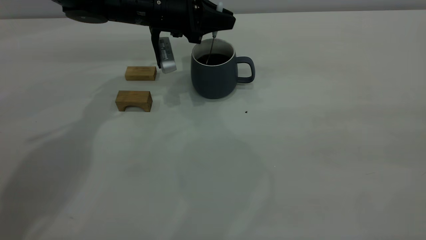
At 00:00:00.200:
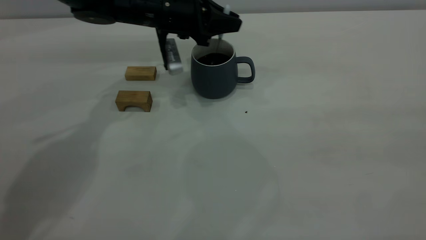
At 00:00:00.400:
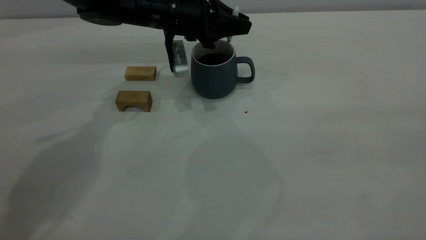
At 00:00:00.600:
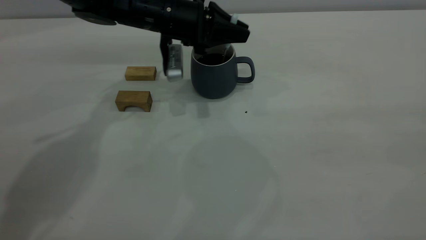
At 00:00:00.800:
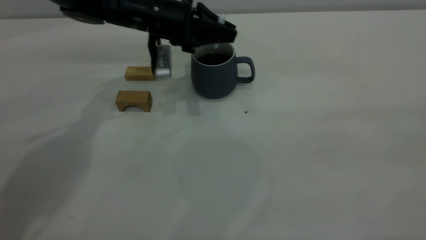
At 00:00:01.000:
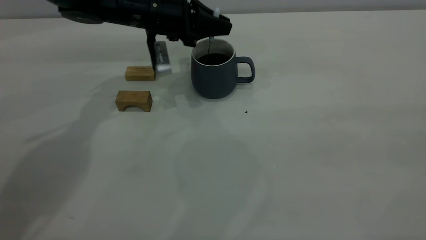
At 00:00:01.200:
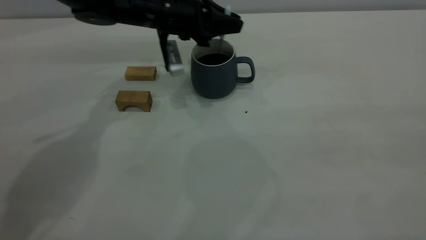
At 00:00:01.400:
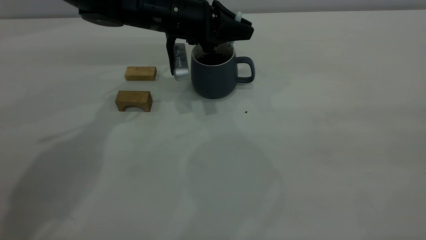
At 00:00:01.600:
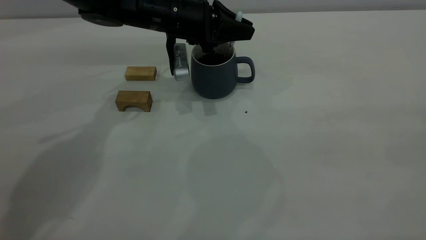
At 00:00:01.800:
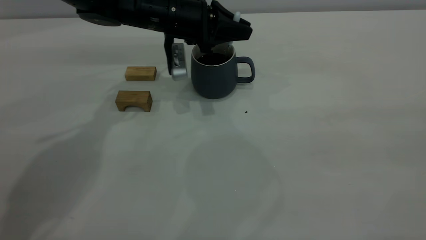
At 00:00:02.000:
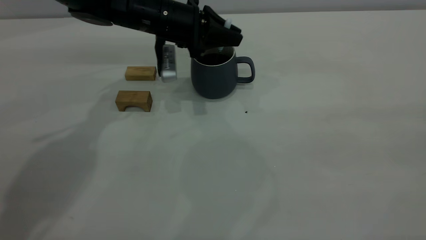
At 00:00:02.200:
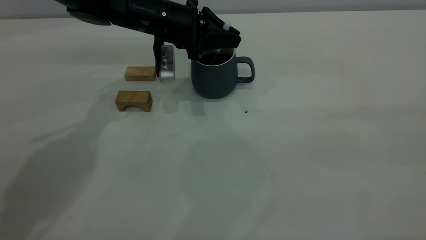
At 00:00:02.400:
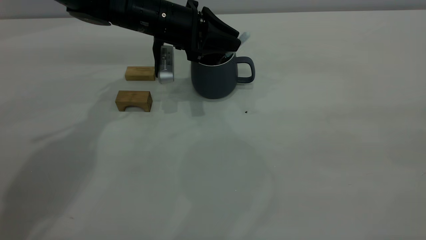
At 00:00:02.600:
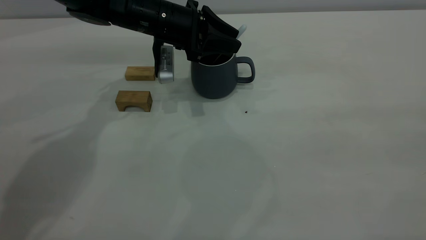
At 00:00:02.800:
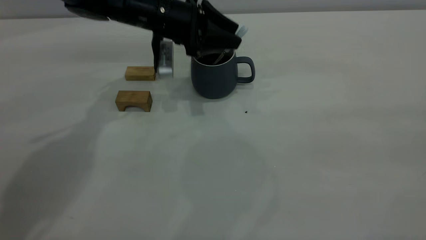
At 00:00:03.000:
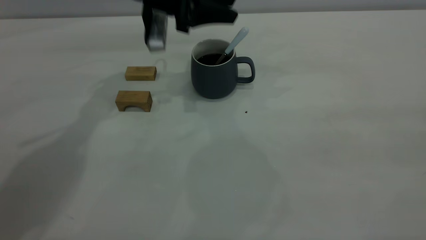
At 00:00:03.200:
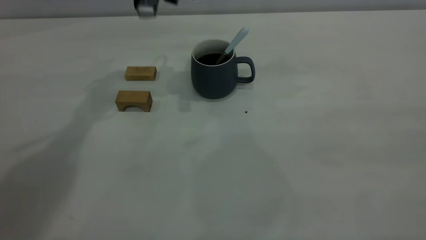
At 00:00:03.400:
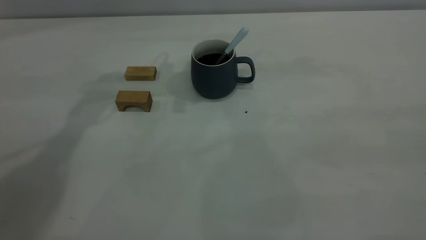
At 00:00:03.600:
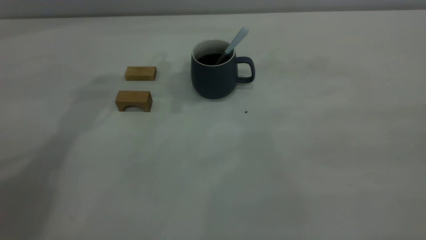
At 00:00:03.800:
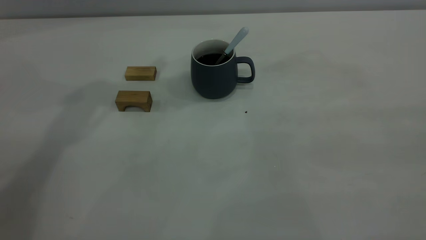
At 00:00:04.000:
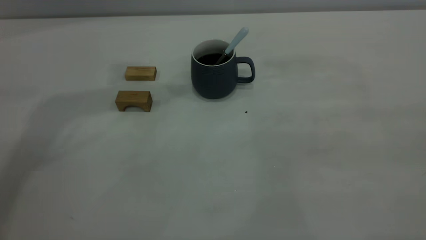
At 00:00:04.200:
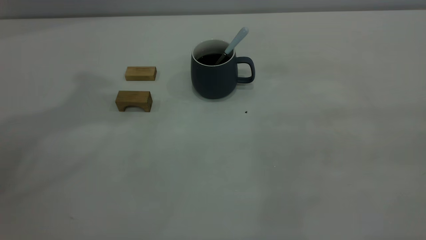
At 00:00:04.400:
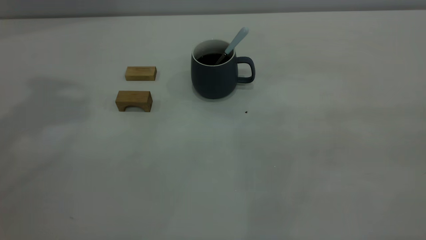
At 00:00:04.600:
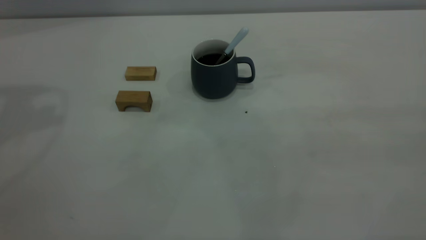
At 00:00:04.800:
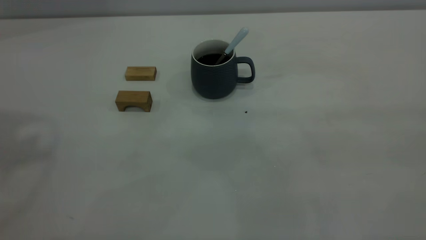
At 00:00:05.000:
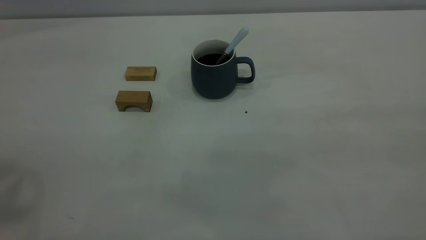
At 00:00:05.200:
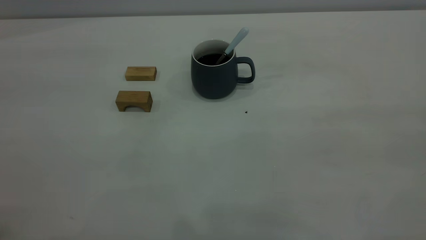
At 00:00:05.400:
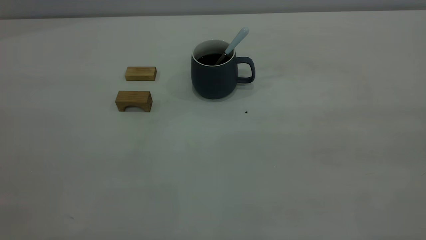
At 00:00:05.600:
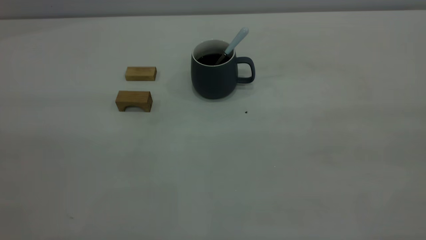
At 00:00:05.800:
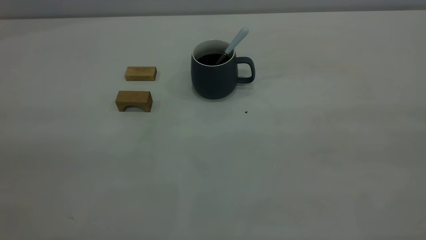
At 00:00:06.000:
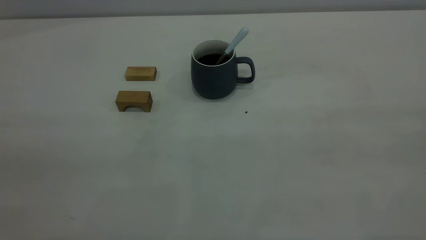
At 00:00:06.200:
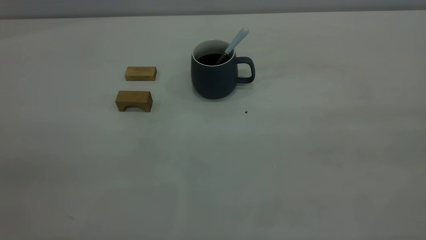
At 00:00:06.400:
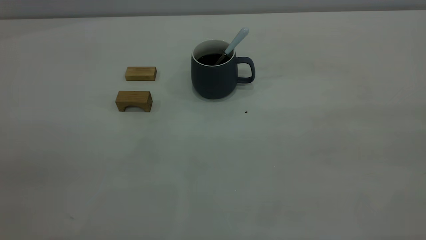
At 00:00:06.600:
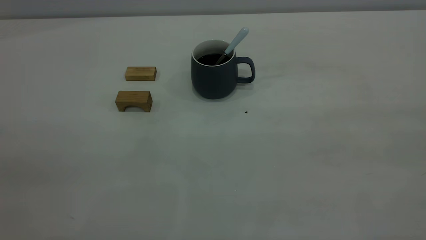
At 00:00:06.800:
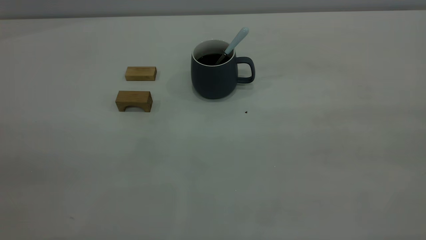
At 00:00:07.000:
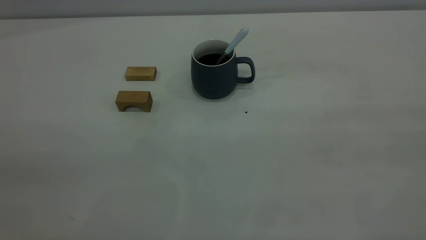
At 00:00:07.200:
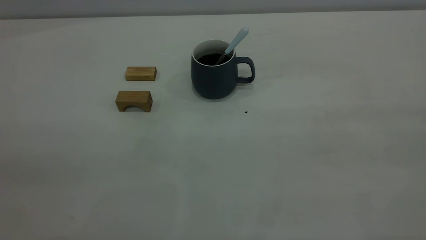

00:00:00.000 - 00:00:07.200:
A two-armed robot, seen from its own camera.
Step, 00:00:00.000 - 00:00:03.000: Stir the coffee in the cup.
00:00:00.000 - 00:00:01.400: The grippers stay close to where they were, moving slightly.
00:00:01.400 - 00:00:02.800: The left gripper opens its fingers.
00:00:02.800 - 00:00:04.400: The left gripper travels upward and to the left by about 40 cm.
